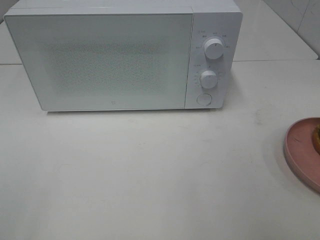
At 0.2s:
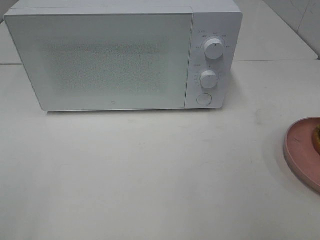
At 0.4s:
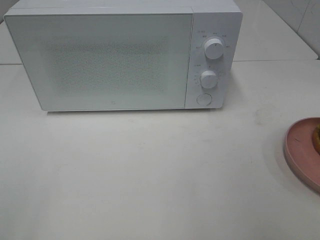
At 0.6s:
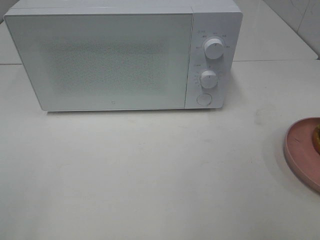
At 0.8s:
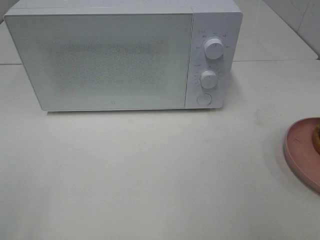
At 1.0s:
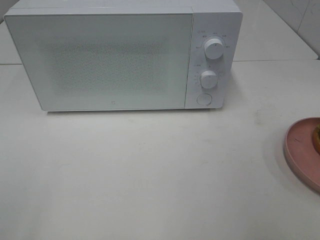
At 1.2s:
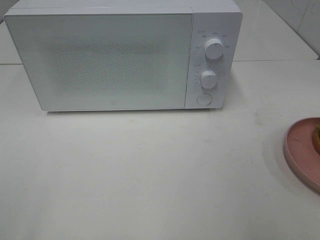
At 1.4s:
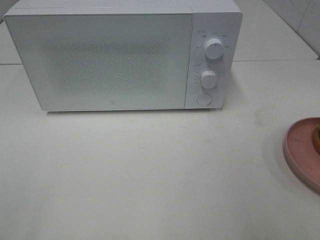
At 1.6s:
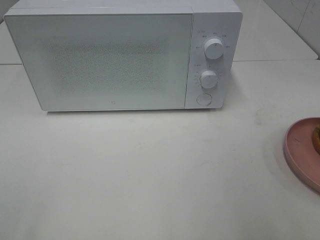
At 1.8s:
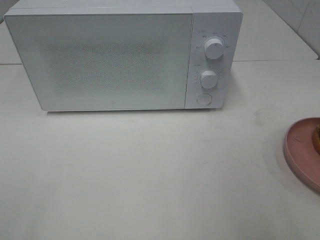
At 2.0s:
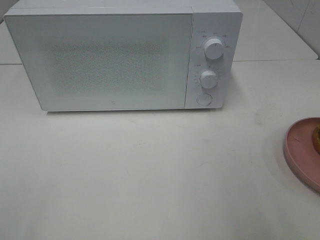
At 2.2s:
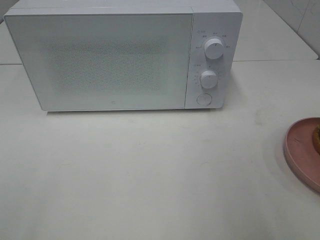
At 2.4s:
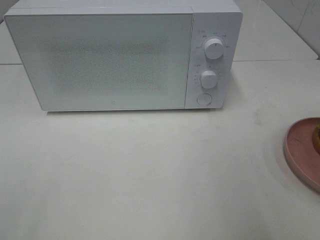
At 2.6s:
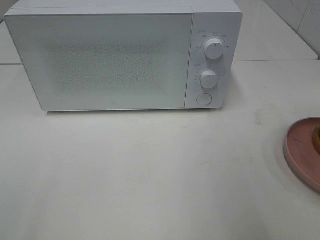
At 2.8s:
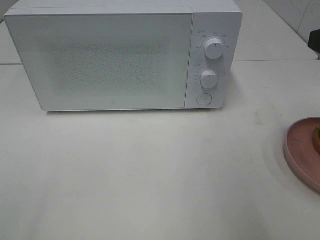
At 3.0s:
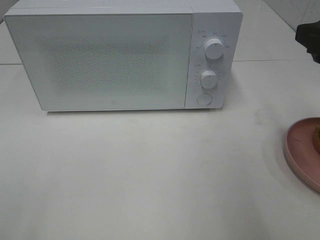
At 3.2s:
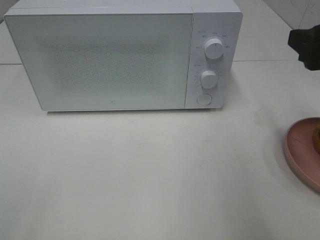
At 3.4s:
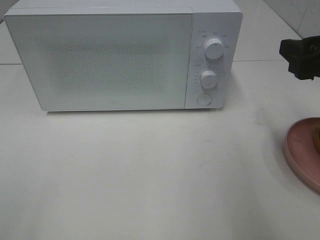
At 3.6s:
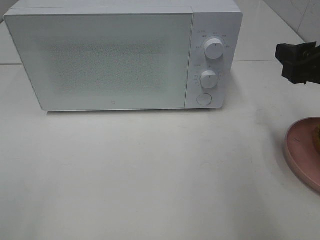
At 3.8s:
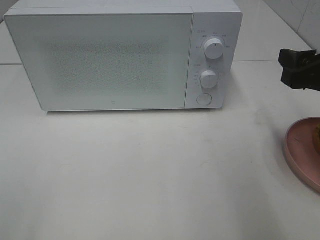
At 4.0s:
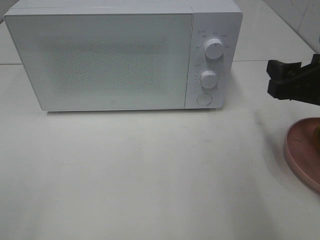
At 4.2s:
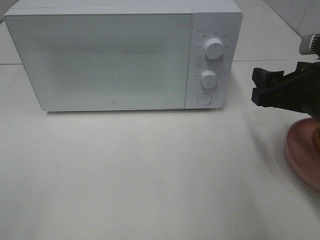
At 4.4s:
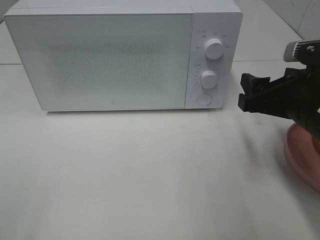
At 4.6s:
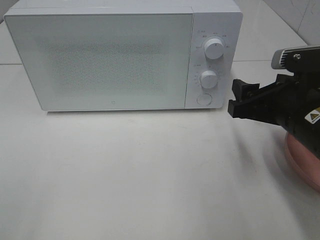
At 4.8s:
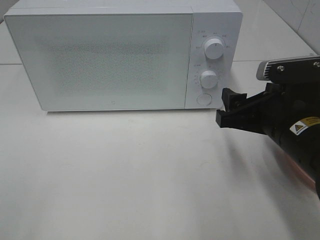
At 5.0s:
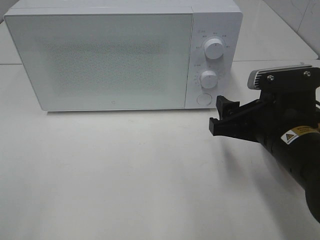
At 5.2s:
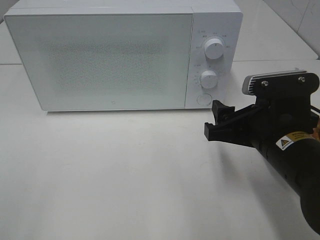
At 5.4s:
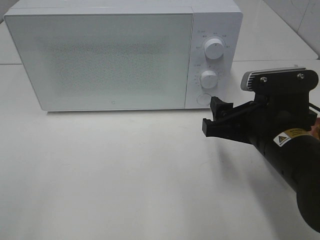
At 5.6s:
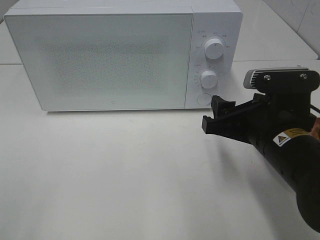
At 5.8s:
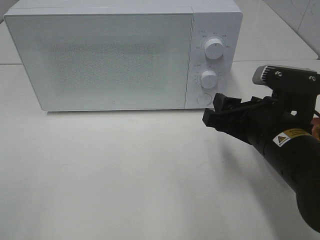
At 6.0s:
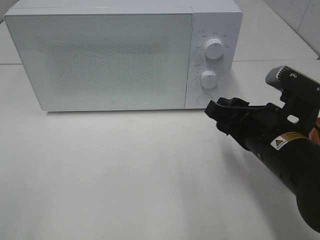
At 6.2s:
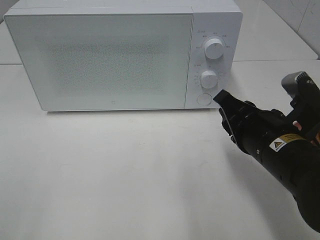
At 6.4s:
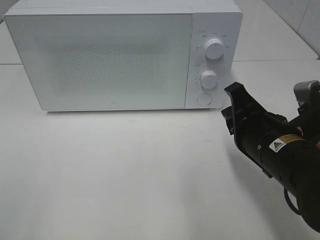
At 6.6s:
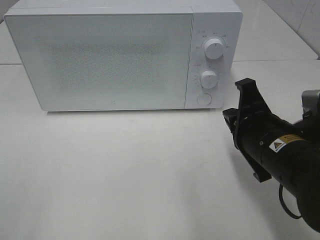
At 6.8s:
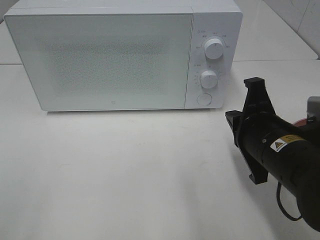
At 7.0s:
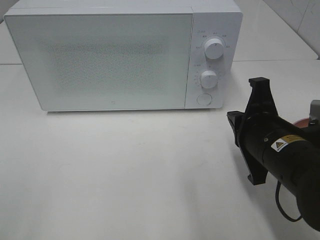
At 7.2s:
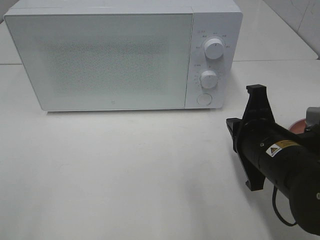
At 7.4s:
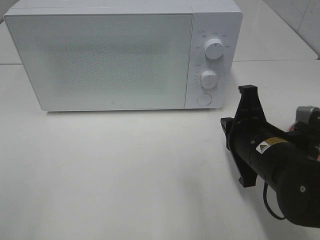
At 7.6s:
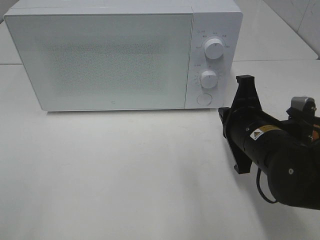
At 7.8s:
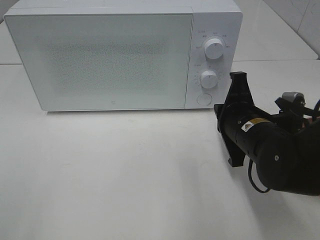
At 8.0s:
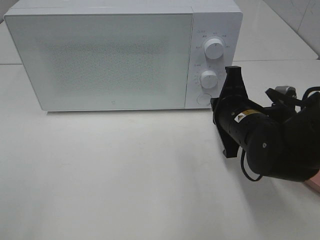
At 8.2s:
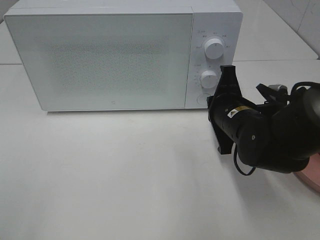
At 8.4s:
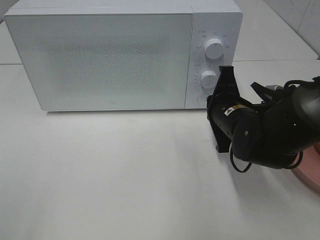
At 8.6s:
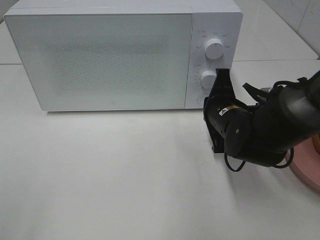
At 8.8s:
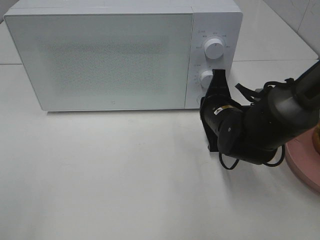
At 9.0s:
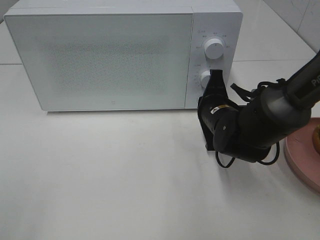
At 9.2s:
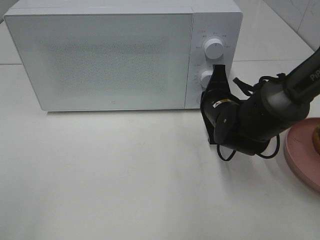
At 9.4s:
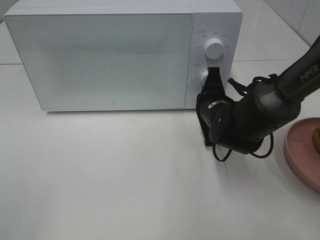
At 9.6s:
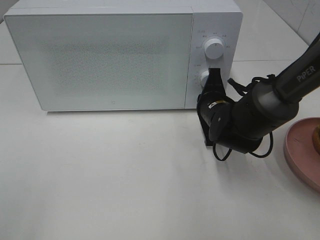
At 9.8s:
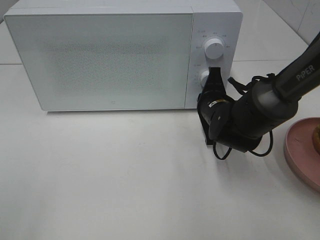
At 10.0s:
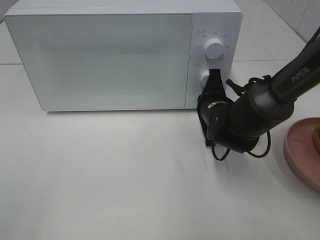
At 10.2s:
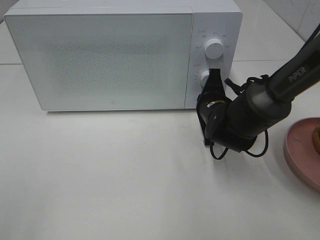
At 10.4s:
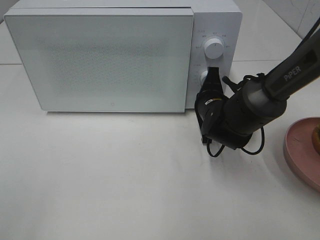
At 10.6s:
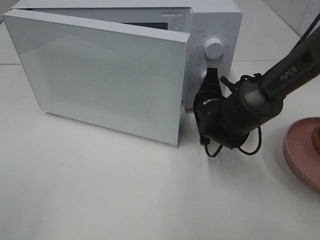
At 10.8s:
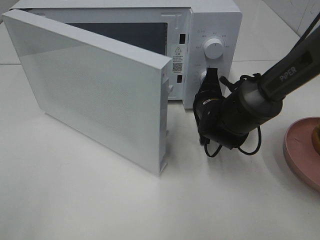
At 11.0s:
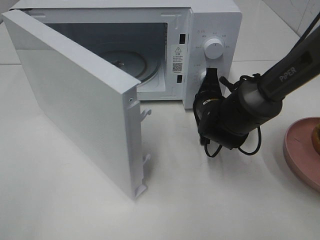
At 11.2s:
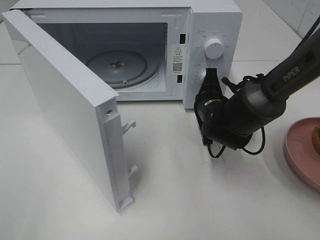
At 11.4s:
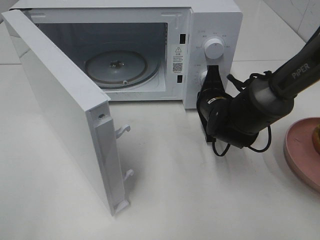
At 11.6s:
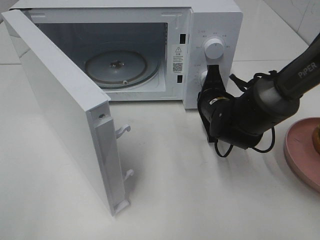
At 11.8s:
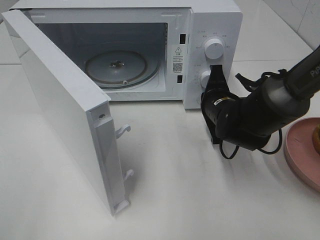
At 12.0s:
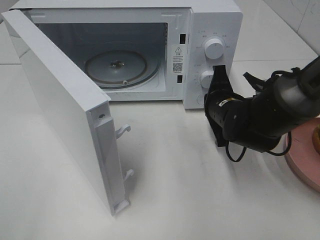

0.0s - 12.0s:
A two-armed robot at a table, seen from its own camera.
Task of the whole recording: Heat the burger.
1.6s - 3.0s: The right gripper is displaced forward by some 15 cm.
3.0s - 4.4s: The right gripper heads downward, covering roughly 10 cm.
4.4s - 6.0s: The right gripper heads to the left, covering approximately 5 cm.
6.0s - 7.6s: The right gripper closes up.
7.6s - 9.0s: The right gripper is displaced forward by about 10 cm.
9.0s - 10.4s: The grippers make only small movements.

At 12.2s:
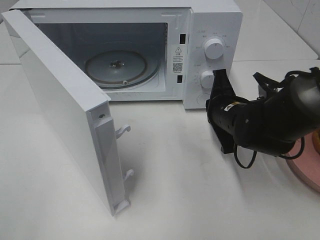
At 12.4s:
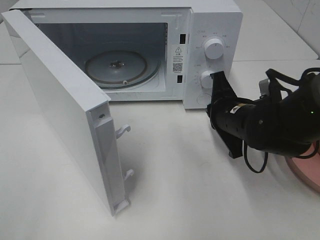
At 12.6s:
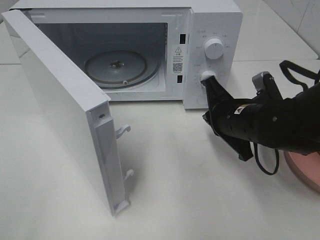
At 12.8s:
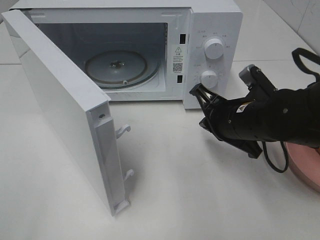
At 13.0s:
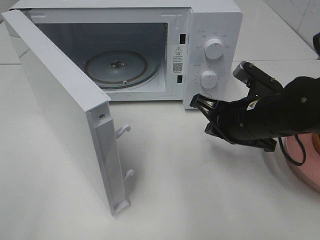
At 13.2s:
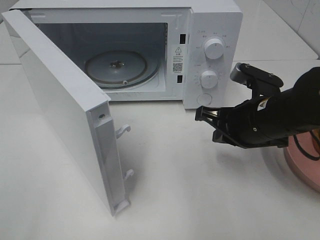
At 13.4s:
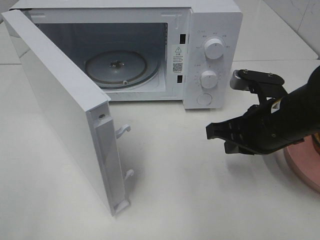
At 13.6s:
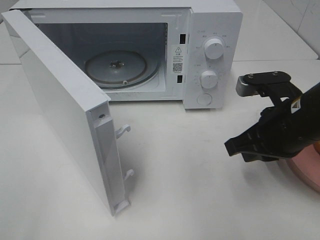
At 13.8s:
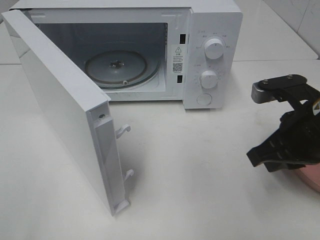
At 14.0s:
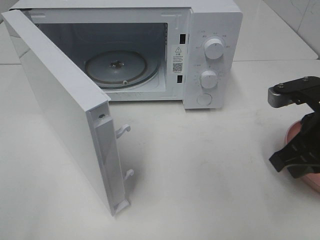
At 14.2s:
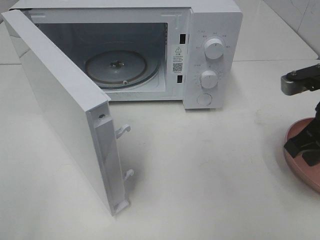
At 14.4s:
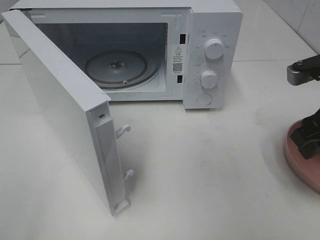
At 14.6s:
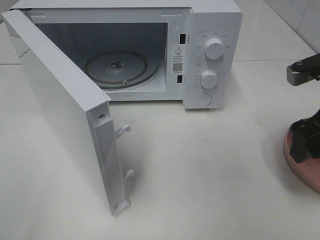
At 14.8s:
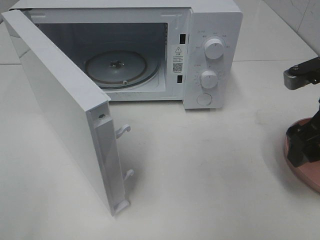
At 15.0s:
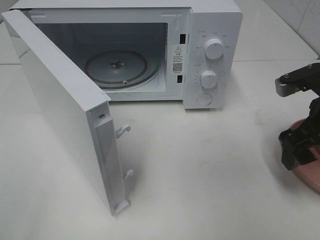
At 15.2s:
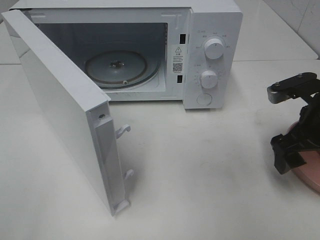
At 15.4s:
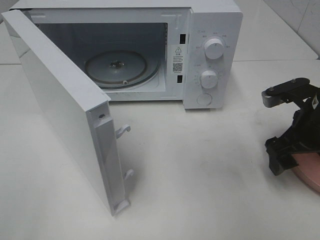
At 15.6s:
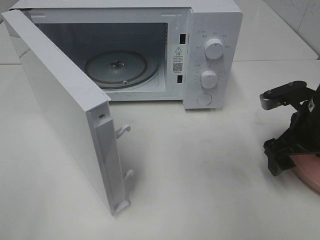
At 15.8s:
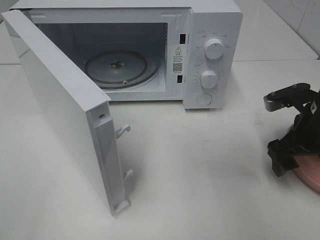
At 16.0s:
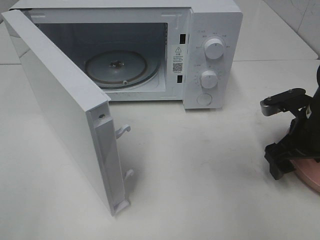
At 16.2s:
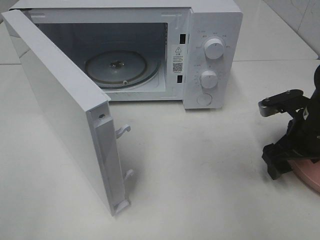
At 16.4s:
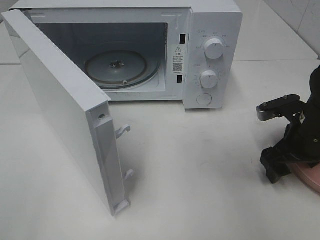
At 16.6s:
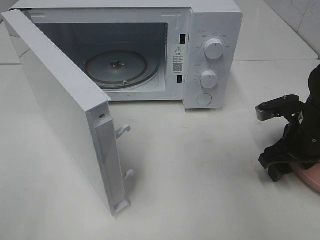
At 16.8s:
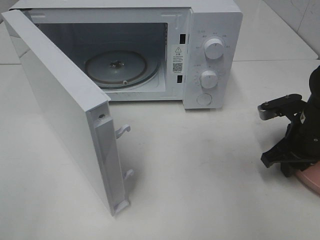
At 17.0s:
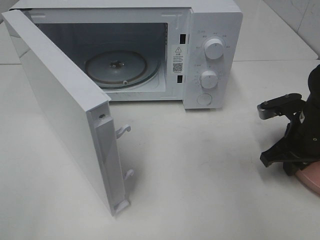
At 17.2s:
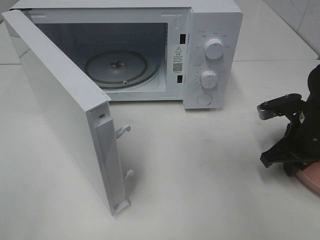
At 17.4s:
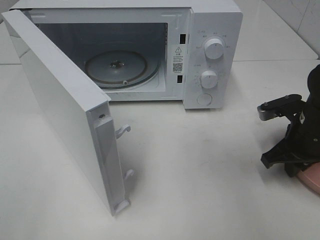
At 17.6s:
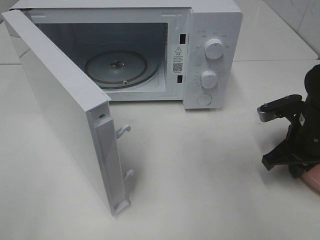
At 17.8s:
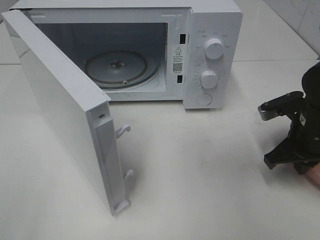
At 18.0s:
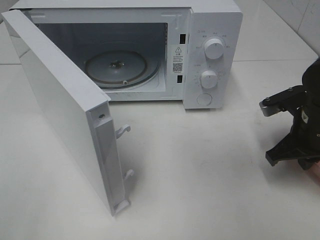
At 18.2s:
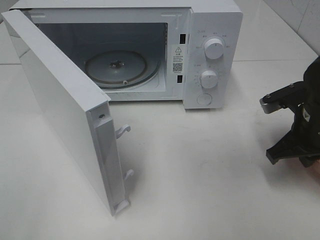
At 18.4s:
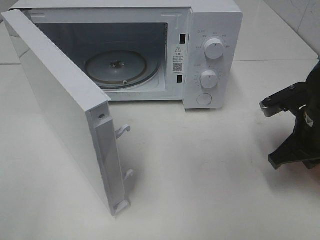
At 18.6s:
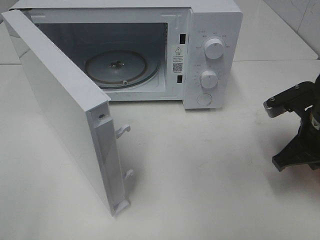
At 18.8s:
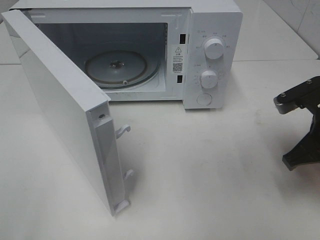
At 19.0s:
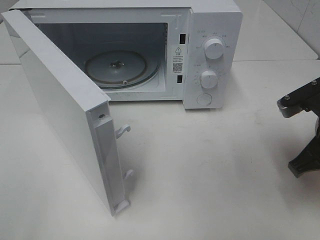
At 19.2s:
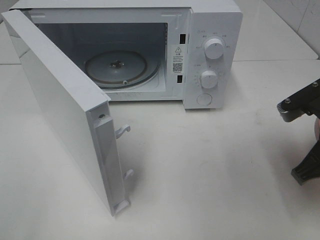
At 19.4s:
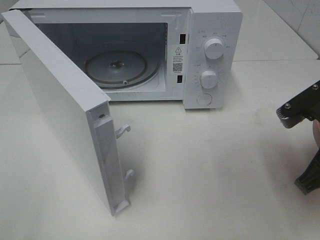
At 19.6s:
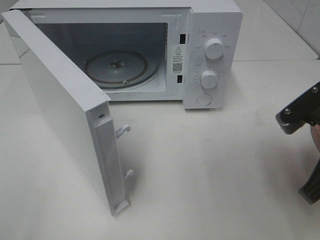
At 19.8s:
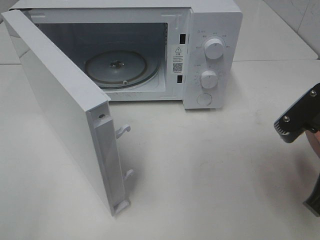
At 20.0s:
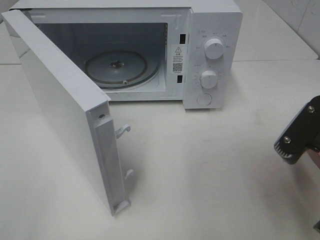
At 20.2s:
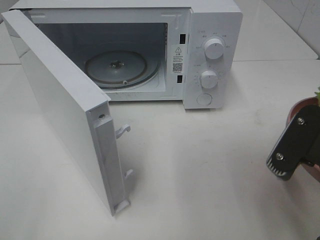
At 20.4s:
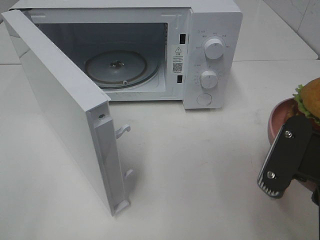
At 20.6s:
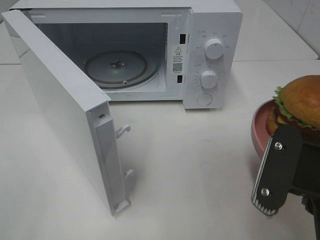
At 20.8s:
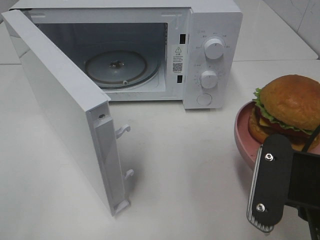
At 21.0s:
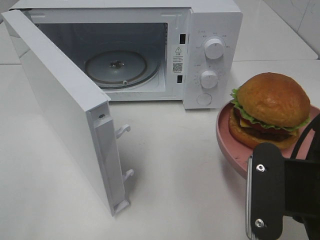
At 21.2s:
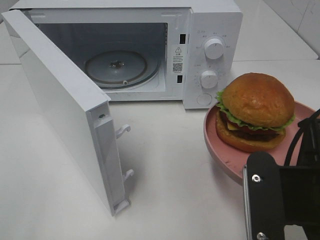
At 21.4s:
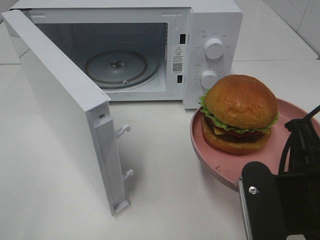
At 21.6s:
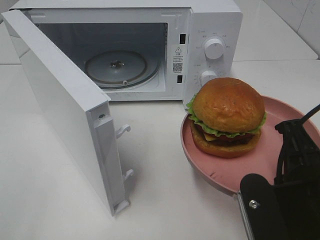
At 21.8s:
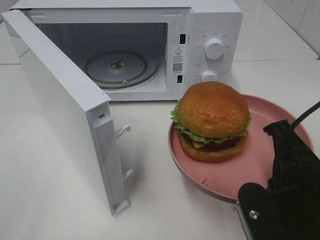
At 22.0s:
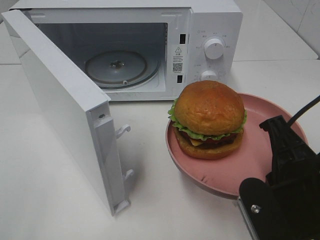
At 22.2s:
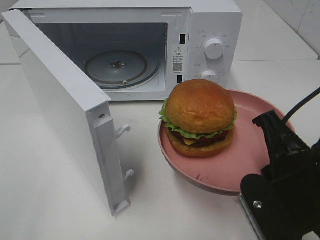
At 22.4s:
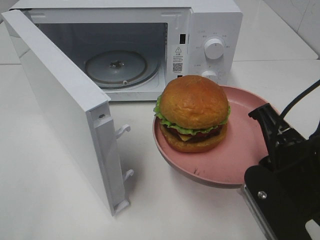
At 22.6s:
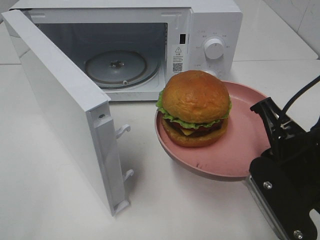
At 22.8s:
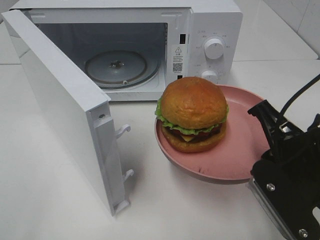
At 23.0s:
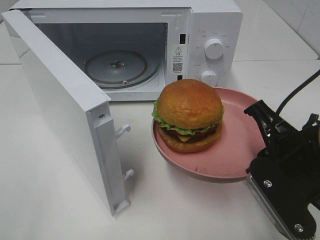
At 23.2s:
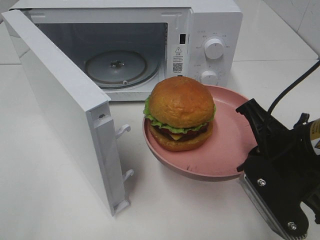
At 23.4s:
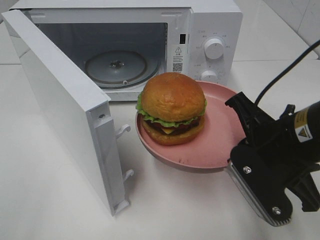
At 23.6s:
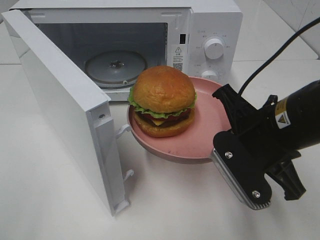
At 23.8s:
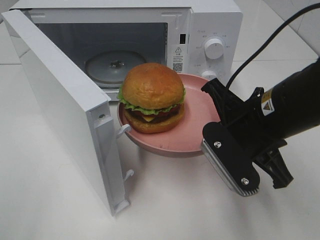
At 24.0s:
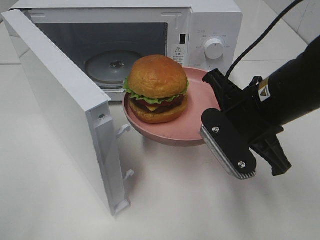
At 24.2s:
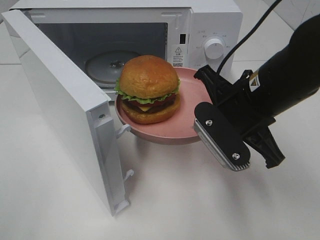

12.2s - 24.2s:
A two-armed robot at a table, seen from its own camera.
Task of the whole recording: Heat the burger.
Step, 12.4s - 18.0s: Right hand: grab the plate with the hamburger.
12.2s - 13.8s: The right gripper moves backward, upward and to the right, some 15 cm.
13.8s - 15.2s: The right gripper changes place by some 5 cm, and opens up.
15.2s - 16.6s: The right gripper moves downward, some 5 cm.
16.6s - 18.2s: The right gripper closes.
18.2s - 19.8s: The right gripper is displaced backward and upward by about 15 cm.
19.8s - 21.2s: The right gripper goes approximately 10 cm backward and to the left.
21.2s - 22.6s: The right gripper moves forward, some 5 cm.
22.6s - 24.2s: The right gripper heads forward, covering roughly 10 cm.
